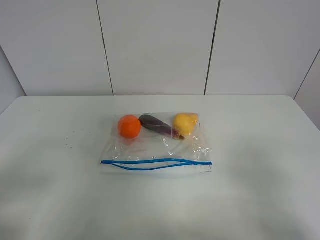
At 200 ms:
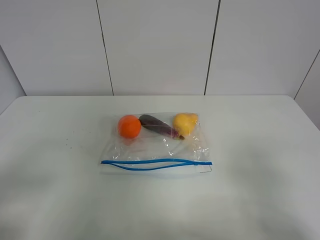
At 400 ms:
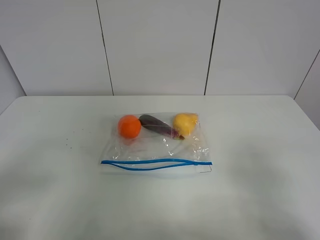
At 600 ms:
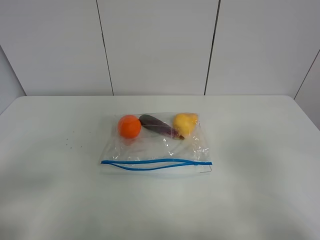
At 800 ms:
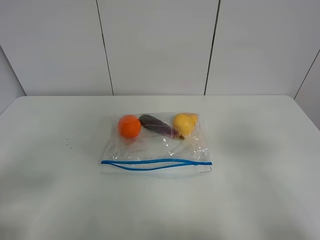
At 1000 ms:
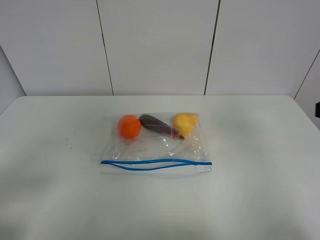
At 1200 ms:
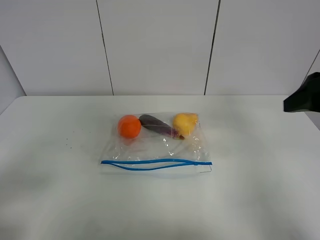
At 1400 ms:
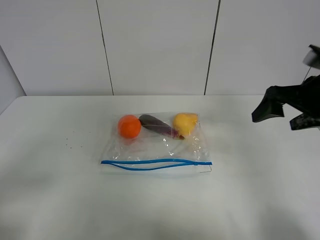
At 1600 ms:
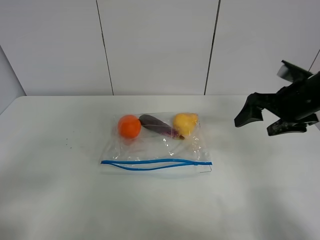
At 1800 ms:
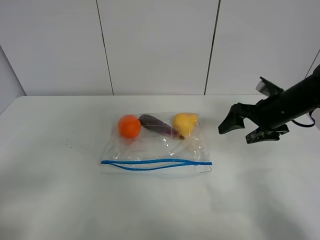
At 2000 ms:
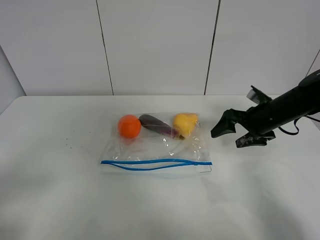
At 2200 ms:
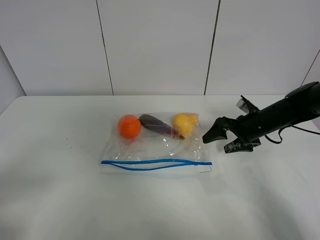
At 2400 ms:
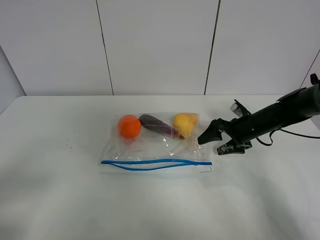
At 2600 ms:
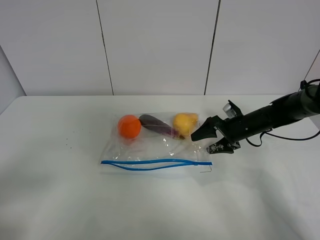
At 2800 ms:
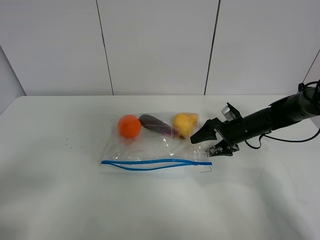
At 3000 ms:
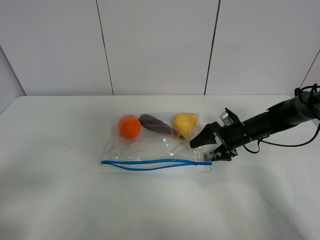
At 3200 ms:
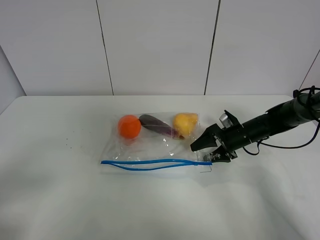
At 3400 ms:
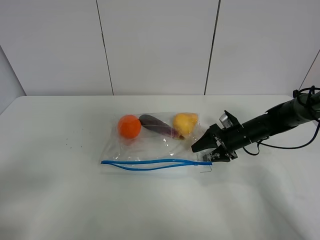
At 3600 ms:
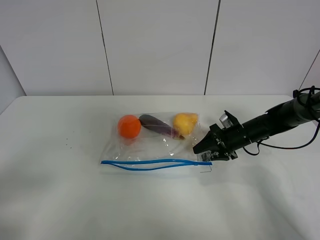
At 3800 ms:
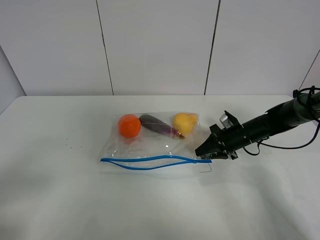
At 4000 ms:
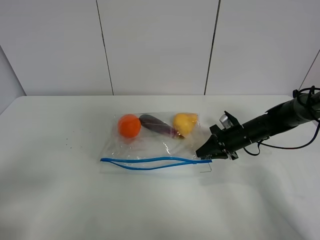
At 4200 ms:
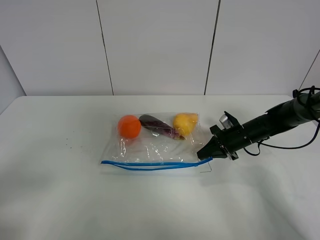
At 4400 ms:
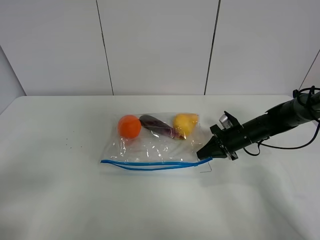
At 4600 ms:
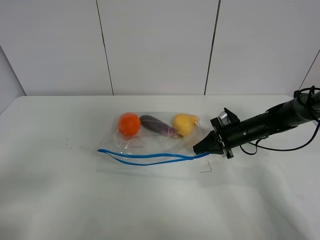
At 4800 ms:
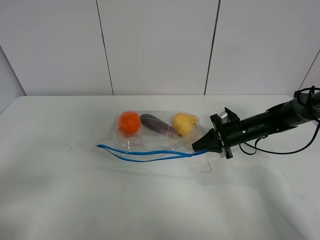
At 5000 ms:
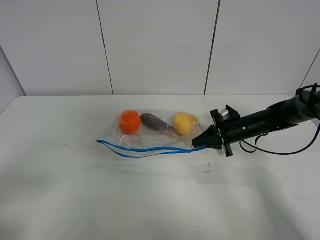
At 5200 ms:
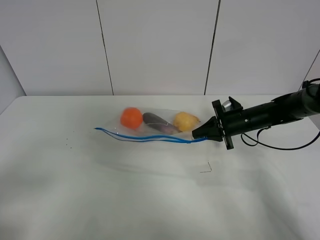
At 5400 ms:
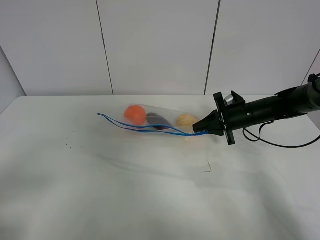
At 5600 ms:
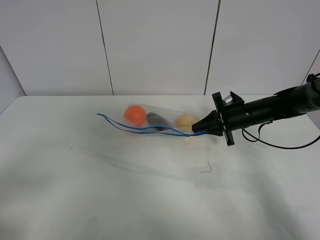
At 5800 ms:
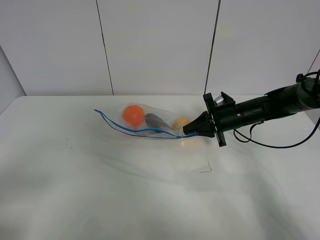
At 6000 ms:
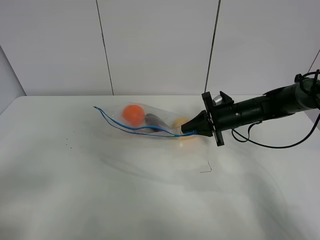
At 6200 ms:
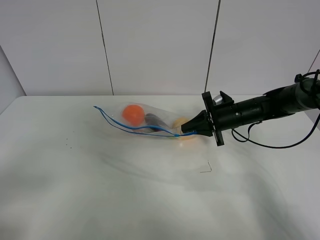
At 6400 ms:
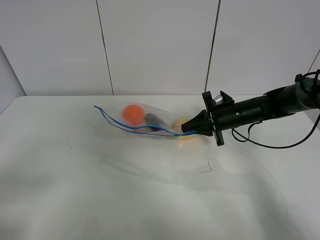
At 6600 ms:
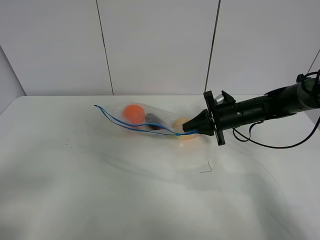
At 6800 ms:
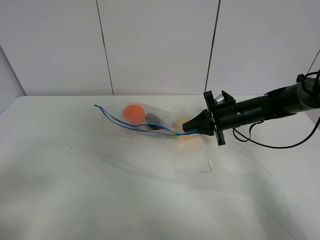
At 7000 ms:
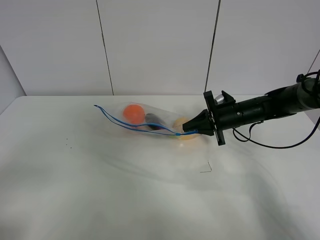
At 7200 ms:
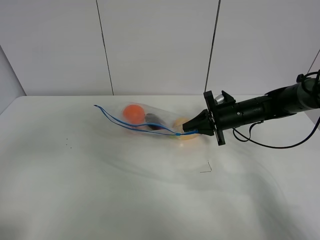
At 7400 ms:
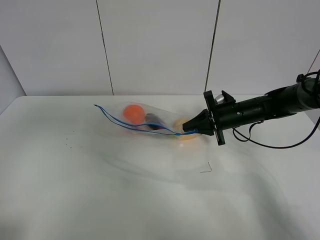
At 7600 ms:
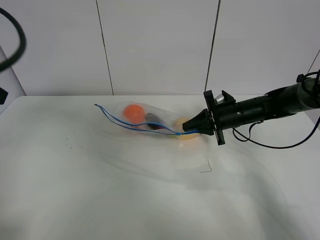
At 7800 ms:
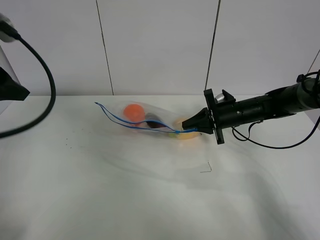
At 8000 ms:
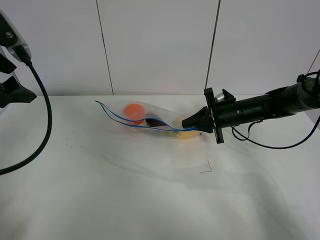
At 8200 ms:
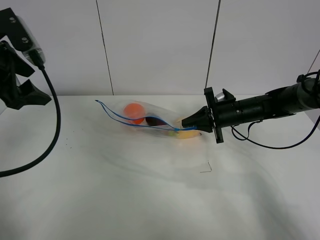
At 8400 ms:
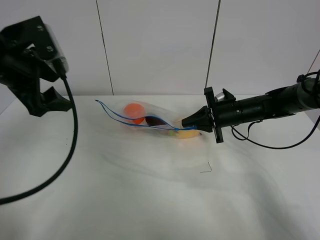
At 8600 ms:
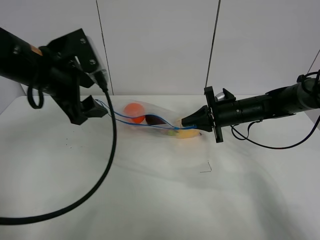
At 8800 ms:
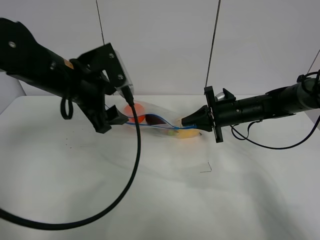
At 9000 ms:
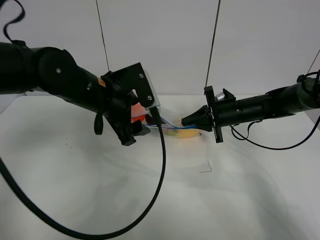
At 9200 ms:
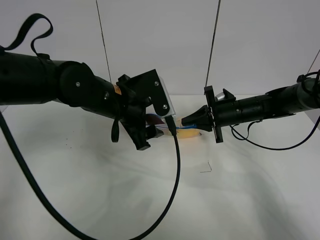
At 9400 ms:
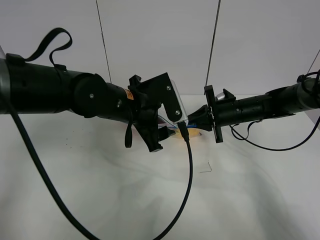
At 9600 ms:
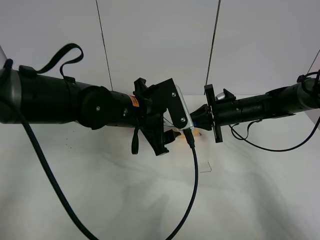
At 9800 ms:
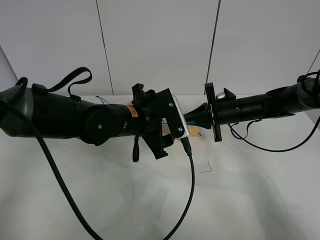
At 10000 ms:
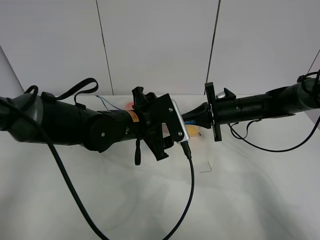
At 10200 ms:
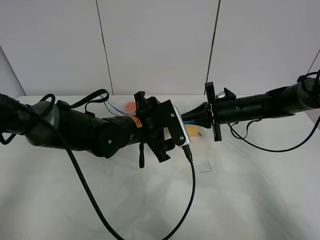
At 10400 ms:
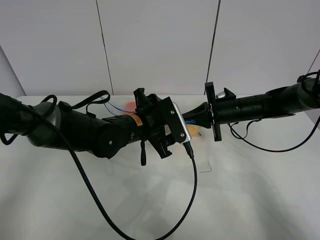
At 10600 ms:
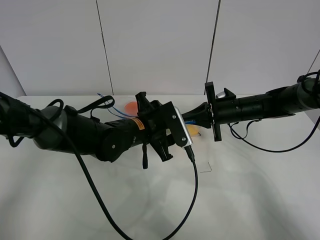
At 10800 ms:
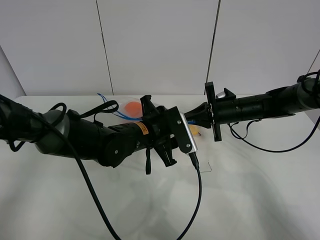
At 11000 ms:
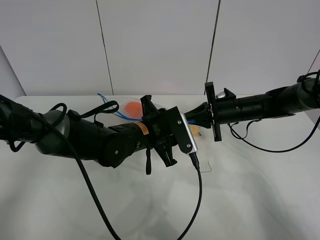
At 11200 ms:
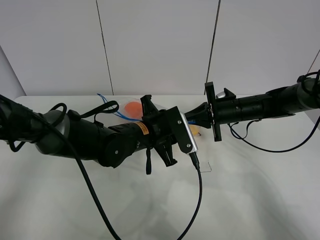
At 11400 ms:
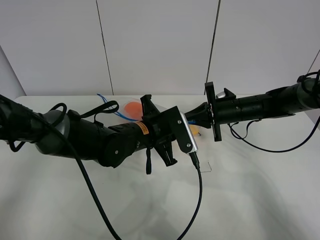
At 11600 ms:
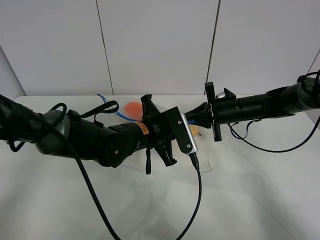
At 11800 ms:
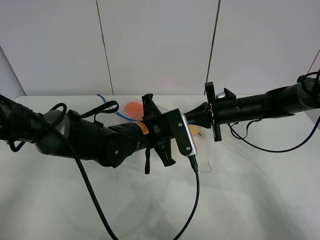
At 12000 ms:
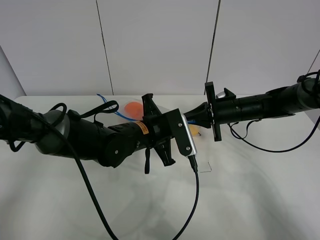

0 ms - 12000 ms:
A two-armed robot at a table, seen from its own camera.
Step, 0 ms - 4200 ms: Grasp the fruit bag with right gripper.
Step, 4400 ms - 5400 ms: Lift the fruit bag with your right gripper.
0 ms - 1600 ms: The right gripper heads forward, covering about 30 cm.
1600 ms - 3000 ms: The right gripper moves downward and forward, about 20 cm.
3000 ms - 4400 ms: The right gripper closes.
4400 ms - 6000 ms: The right gripper is displaced upward by roughly 5 cm.
6000 ms - 7600 ms: The left gripper travels forward and upward by roughly 20 cm.
7600 ms - 9000 ms: The left gripper travels to the right, downward and forward by some 25 cm.
9000 ms - 10400 ms: The left gripper shifts roughly 10 cm downward and to the right.
10400 ms - 12000 ms: The left gripper closes its fingers.

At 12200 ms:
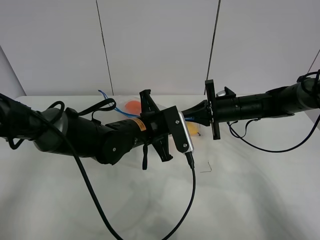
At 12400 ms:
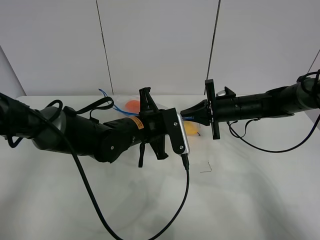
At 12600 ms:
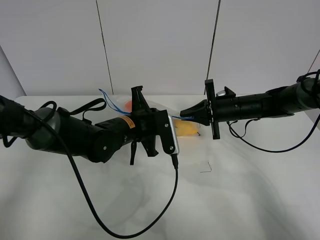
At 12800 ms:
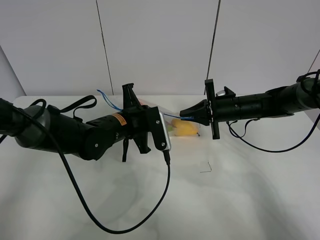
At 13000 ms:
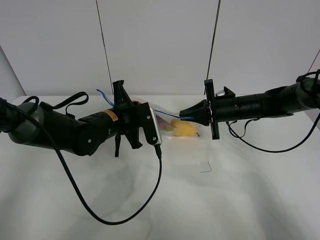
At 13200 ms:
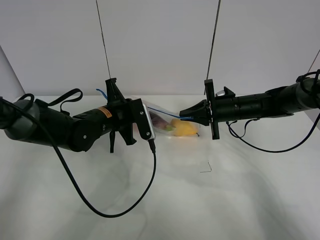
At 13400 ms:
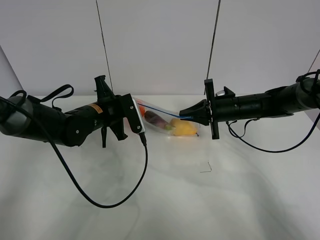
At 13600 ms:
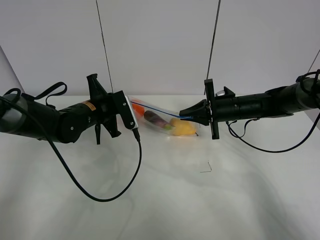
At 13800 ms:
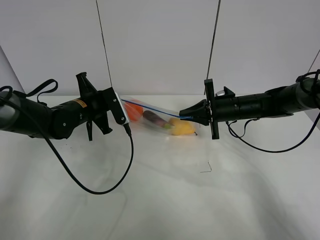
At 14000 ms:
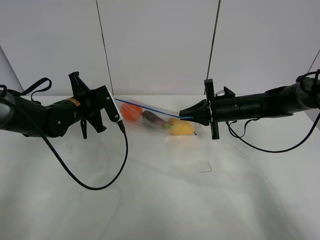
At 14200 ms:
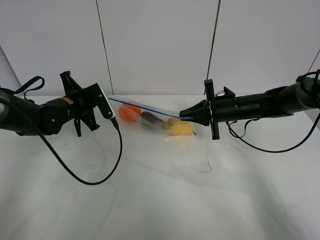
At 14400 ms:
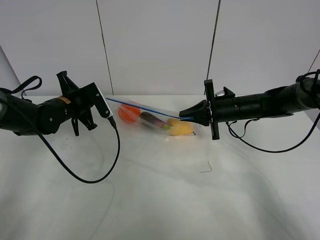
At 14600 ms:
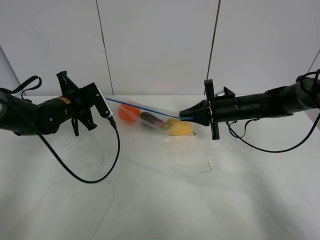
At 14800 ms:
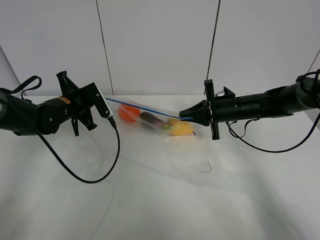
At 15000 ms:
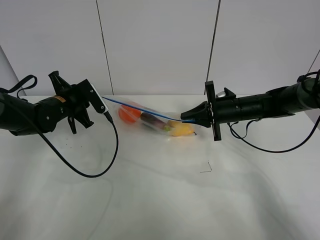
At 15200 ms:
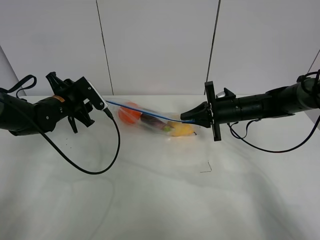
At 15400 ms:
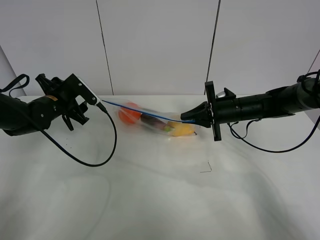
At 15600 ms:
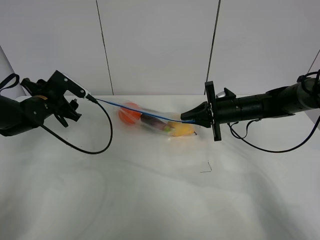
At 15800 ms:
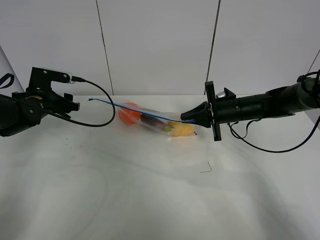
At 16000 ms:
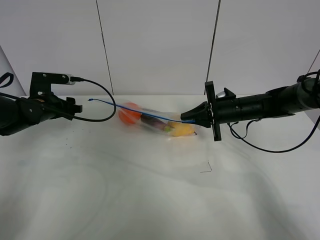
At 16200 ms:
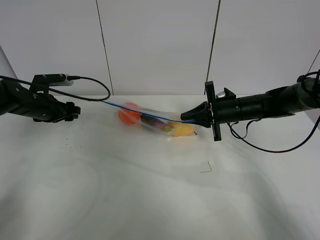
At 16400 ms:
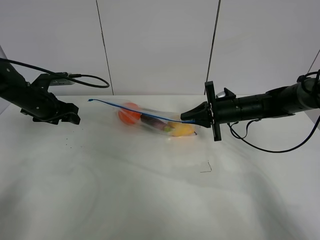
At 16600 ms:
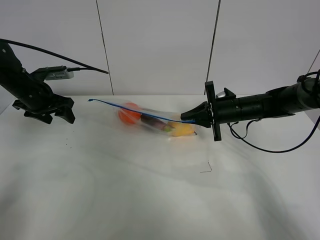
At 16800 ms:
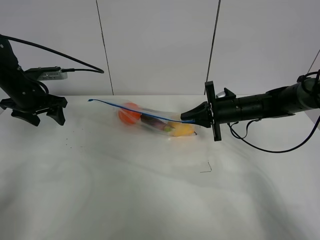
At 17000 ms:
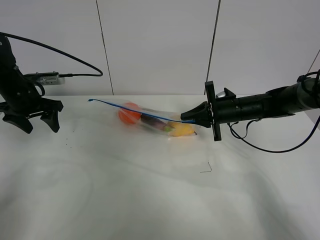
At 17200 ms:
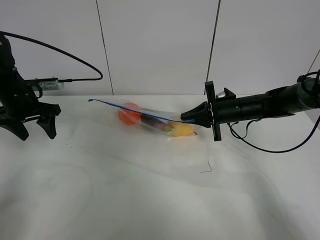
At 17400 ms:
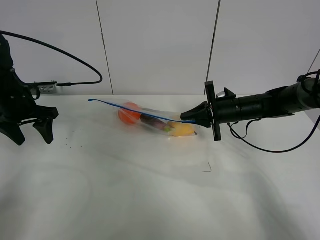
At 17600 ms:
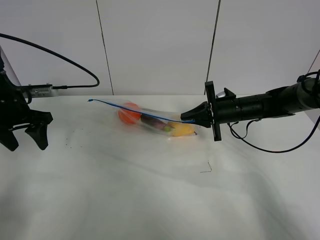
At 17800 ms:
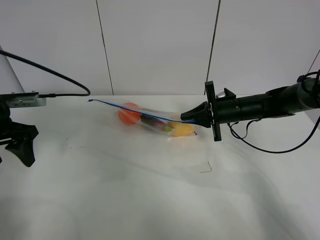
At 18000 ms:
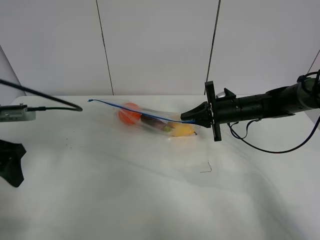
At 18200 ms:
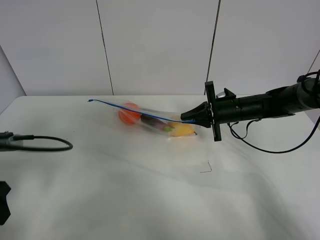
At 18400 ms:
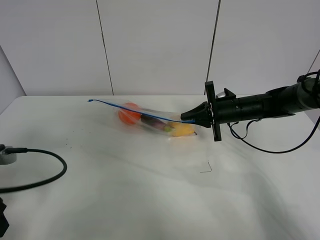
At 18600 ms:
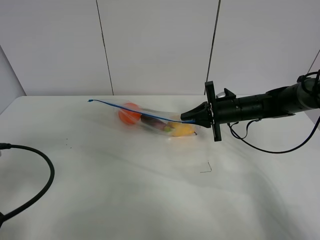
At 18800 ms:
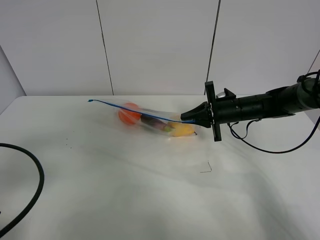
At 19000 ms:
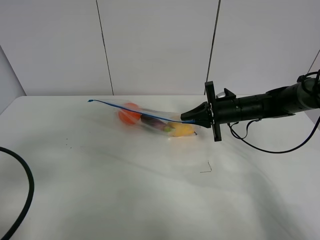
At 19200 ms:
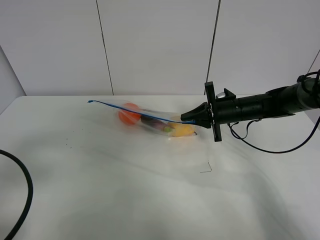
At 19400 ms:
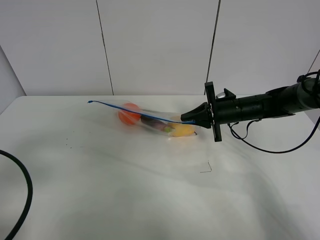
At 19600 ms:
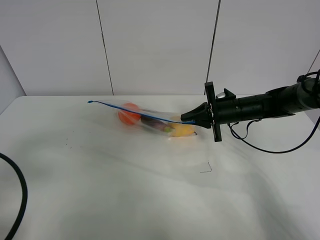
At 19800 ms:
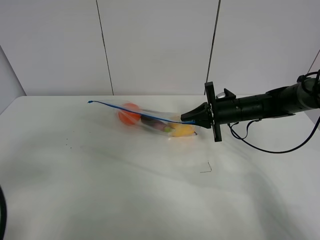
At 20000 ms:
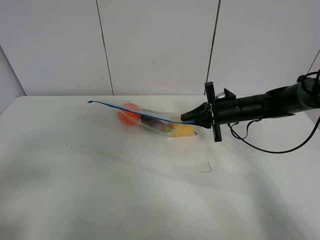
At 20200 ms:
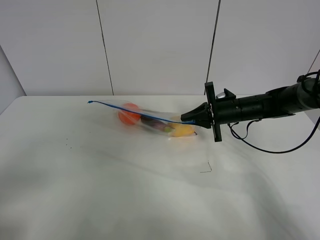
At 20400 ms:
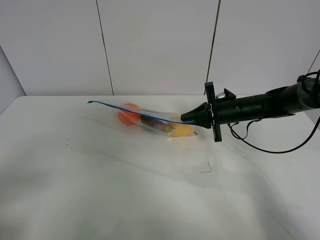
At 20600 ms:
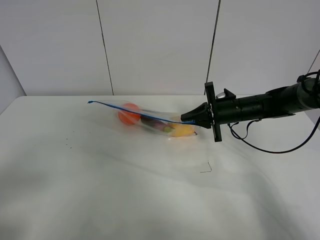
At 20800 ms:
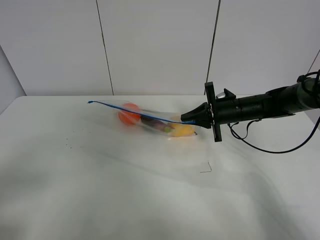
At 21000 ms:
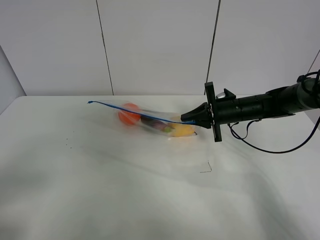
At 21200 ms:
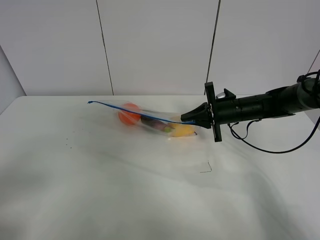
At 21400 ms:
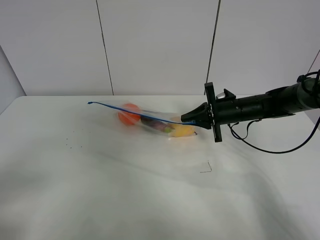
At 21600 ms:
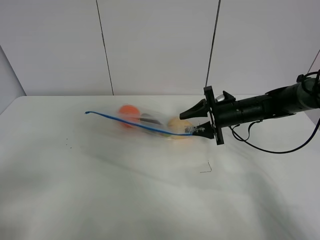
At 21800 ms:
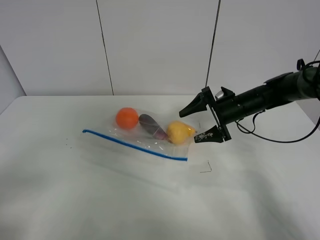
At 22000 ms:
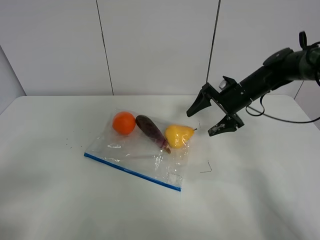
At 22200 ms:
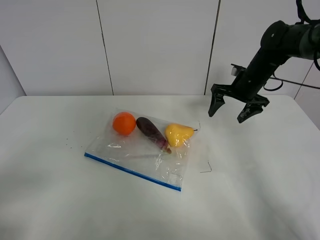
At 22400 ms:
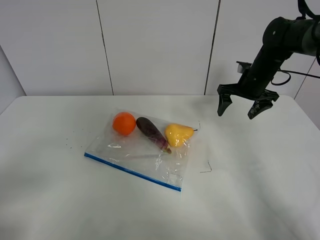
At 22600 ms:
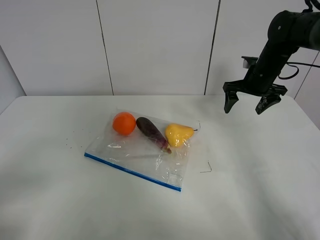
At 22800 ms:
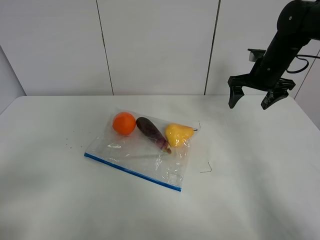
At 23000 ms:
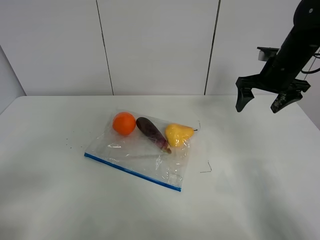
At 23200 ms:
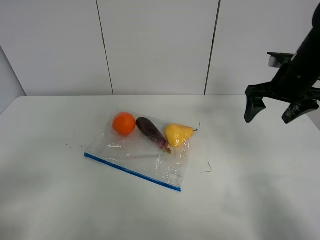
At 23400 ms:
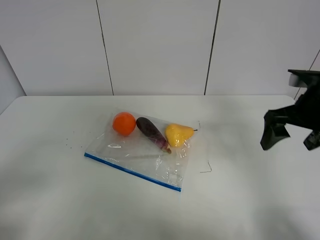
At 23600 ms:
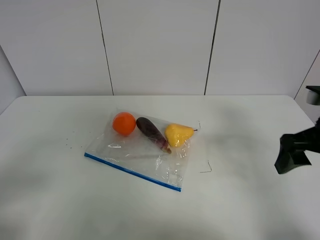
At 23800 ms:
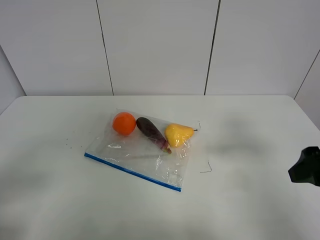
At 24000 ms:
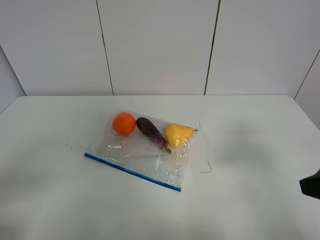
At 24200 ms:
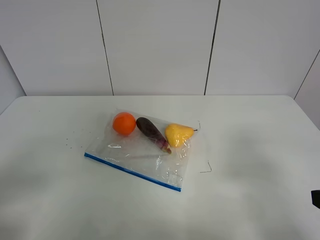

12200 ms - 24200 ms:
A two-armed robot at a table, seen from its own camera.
Step, 12200 ms - 15200 ms: Pull the fruit bag with left gripper.
12200 ms - 13800 ms: The left gripper travels to the left and forward by roughly 15 cm.
13800 ms - 15200 ms: The left gripper goes about 5 cm to the left, and opens.
15200 ms - 16600 ms: The left gripper is displaced to the left by approximately 10 cm.
16600 ms - 18200 ms: The left gripper goes approximately 25 cm backward.
18200 ms - 19800 ms: The left gripper is displaced backward by about 10 cm.
21200 ms - 22600 ms: The right gripper travels upward and to the right by about 10 cm, and opens up.
22600 ms - 24200 ms: The right gripper moves backward, some 35 cm.
